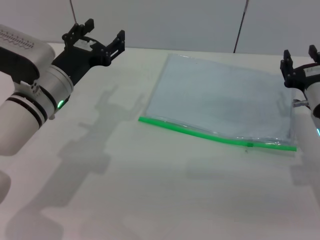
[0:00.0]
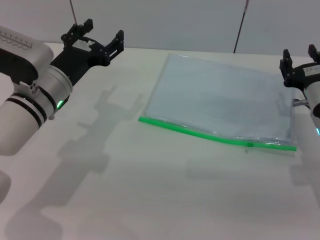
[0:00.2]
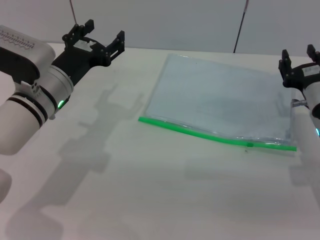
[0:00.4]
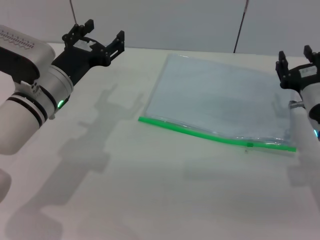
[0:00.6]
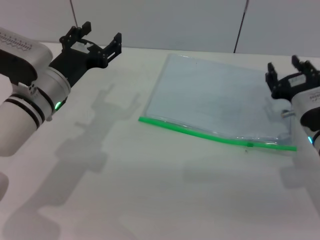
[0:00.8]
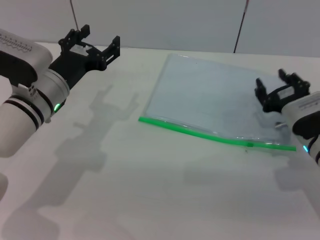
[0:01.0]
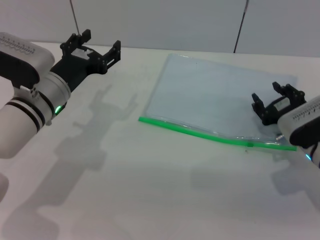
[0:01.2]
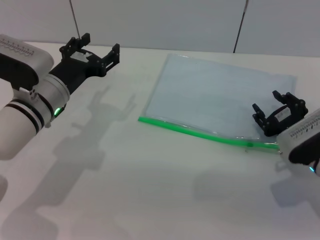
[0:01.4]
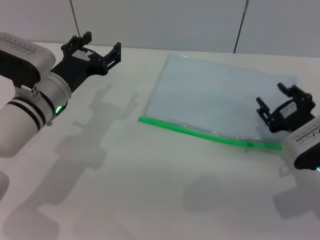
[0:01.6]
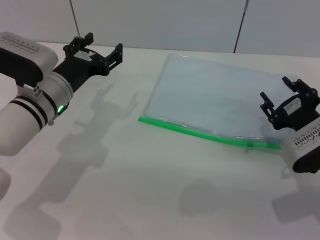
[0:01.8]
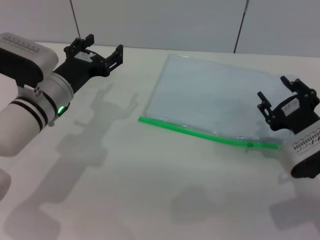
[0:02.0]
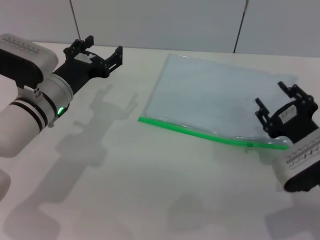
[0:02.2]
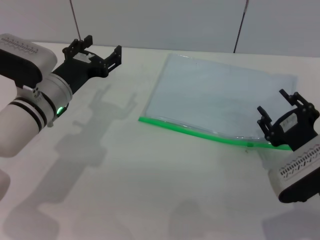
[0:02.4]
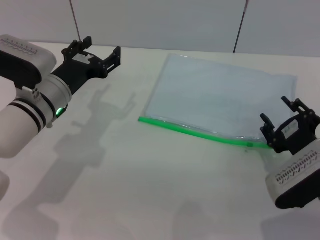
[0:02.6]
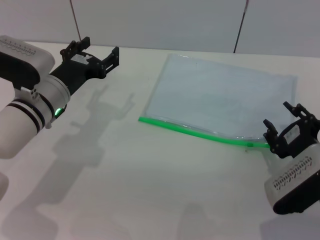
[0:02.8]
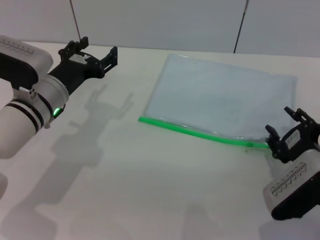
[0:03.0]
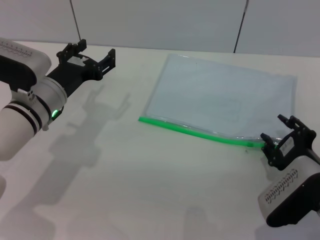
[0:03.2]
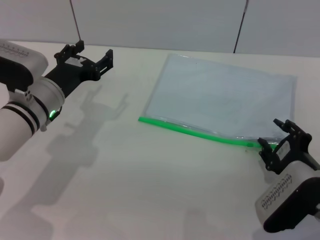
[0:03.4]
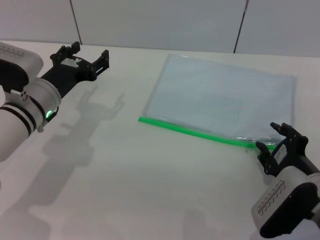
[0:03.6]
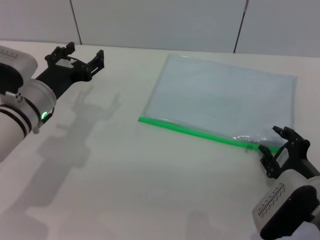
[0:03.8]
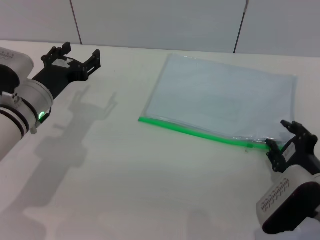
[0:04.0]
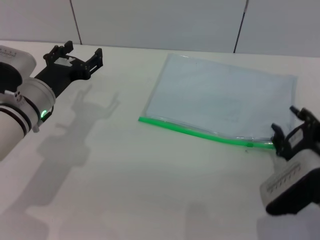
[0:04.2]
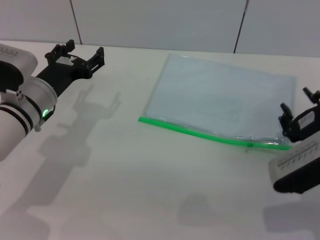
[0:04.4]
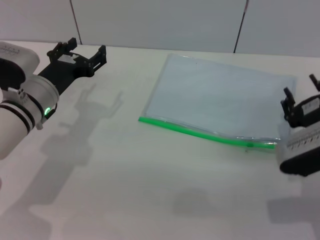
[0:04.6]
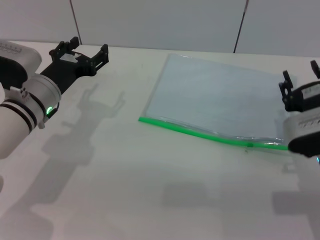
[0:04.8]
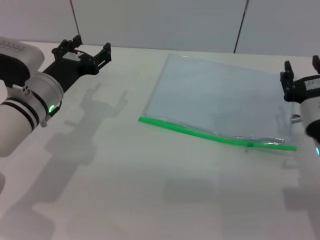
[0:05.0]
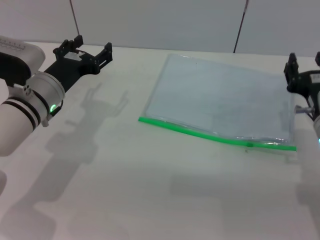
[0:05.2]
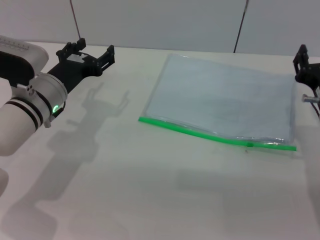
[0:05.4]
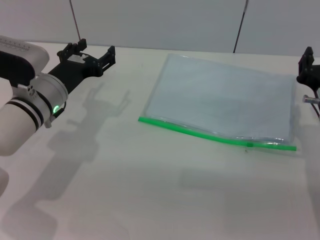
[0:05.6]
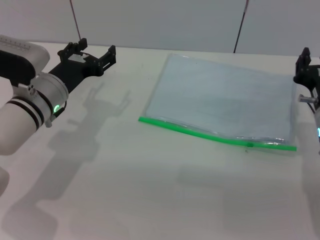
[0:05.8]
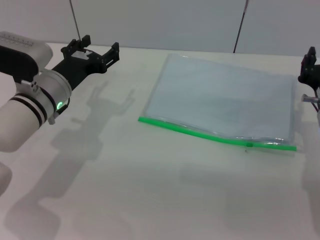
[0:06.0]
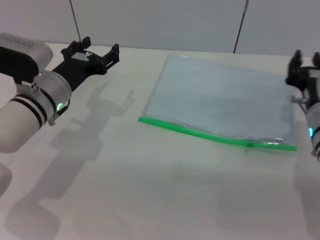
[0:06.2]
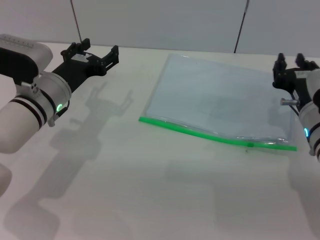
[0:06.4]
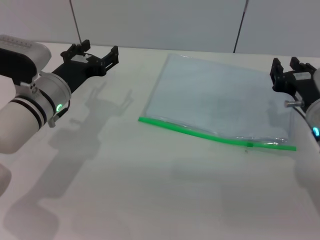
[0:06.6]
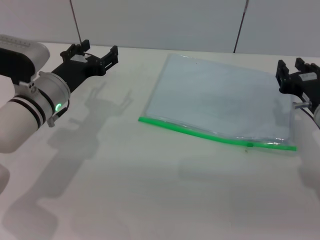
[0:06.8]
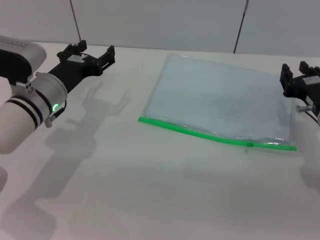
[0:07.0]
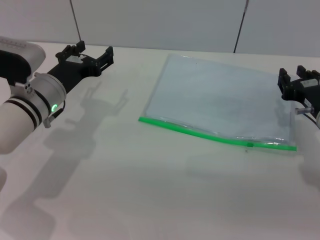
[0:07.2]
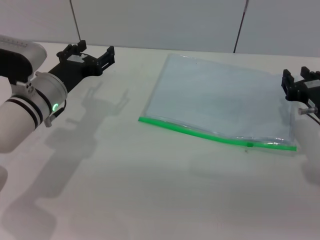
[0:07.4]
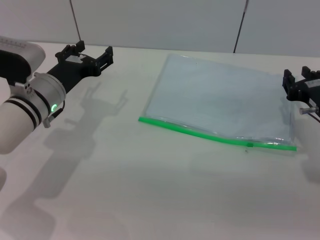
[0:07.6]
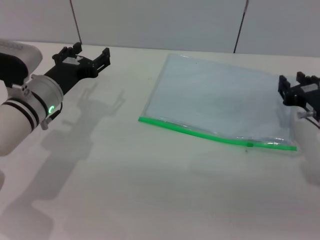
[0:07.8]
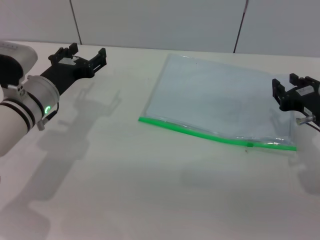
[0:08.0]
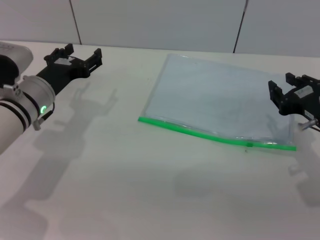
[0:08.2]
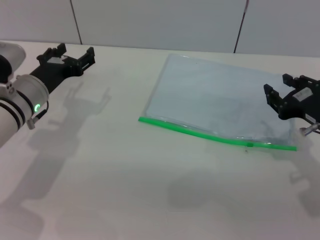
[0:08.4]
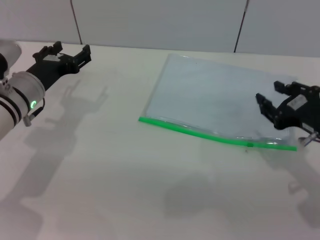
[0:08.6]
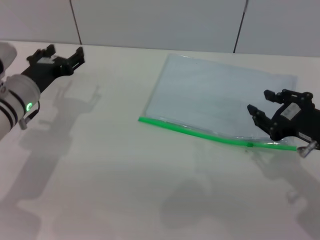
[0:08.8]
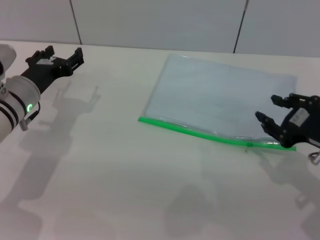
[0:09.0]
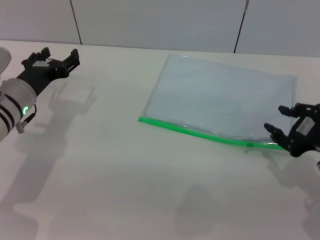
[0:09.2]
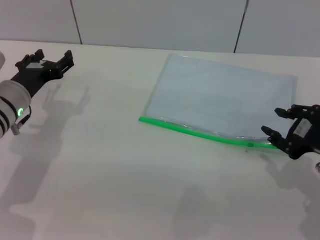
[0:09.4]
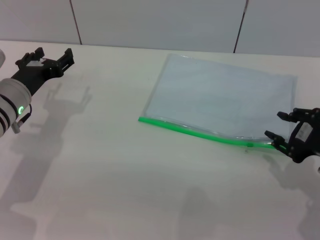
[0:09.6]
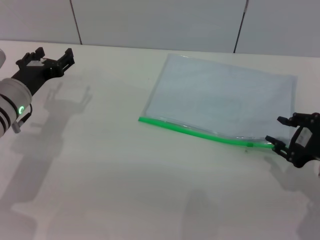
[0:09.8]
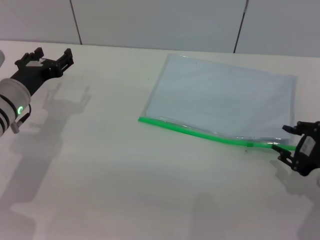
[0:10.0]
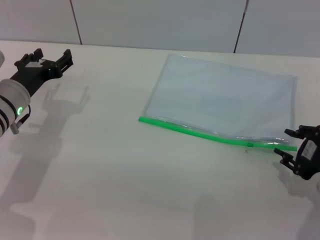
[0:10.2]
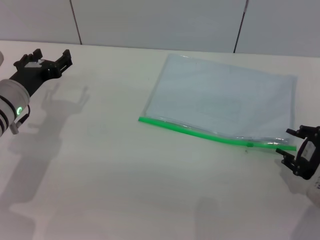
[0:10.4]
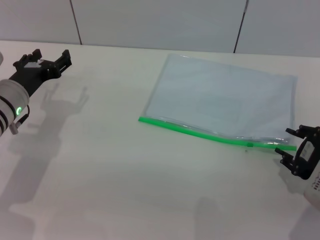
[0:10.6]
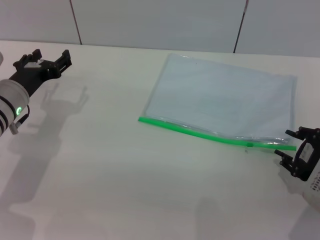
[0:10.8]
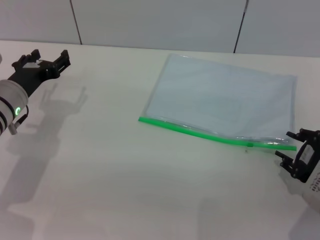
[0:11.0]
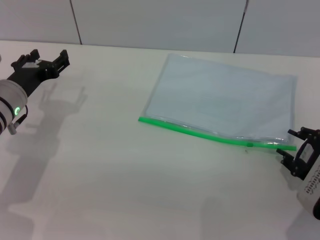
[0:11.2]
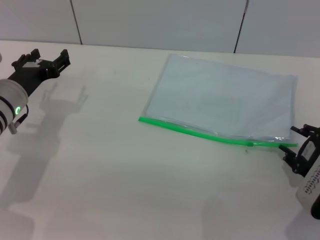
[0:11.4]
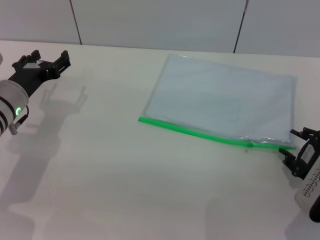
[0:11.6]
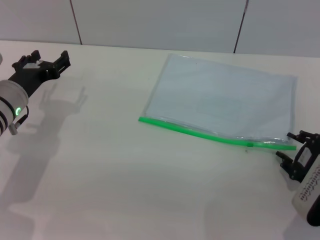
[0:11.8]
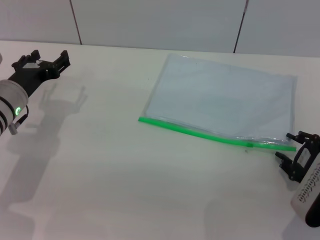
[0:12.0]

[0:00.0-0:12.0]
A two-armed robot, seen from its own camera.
0:01.6 to 0:03.0: The right gripper heads backward, covering roughly 5 cm.
0:03.0 to 0:04.4: The grippers move only a little.
0:04.4 to 0:06.0: The right gripper heads forward, covering about 5 cm.
0:07.6 to 0:09.0: The right gripper moves backward, roughly 5 cm.
0:10.4 to 0:12.0: There are only small adjustments of the grippers.

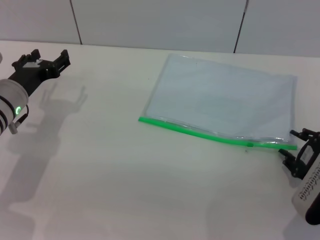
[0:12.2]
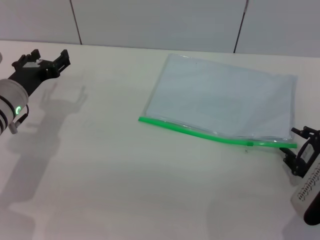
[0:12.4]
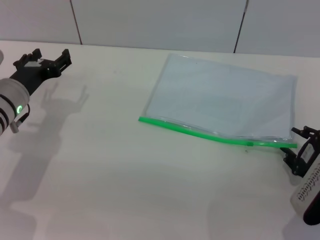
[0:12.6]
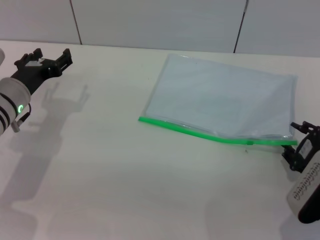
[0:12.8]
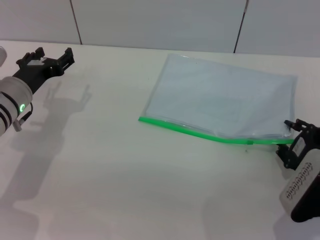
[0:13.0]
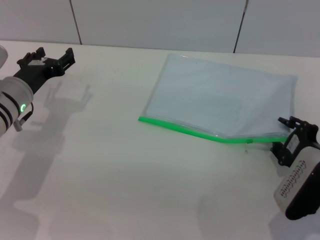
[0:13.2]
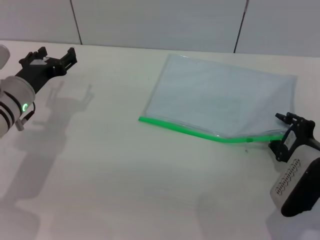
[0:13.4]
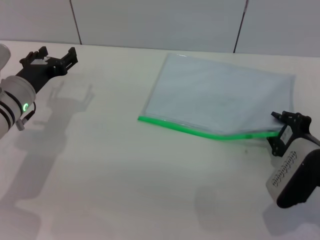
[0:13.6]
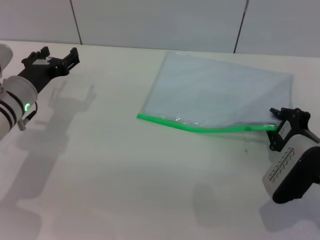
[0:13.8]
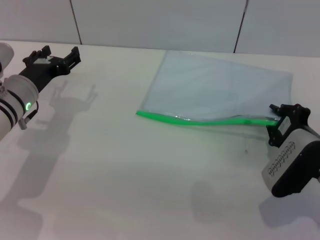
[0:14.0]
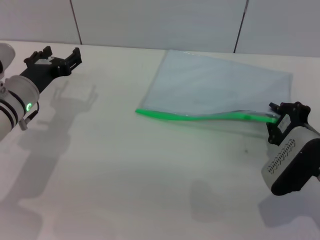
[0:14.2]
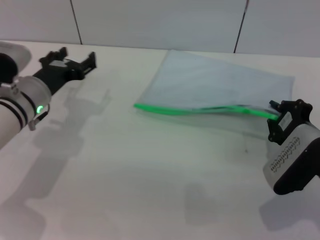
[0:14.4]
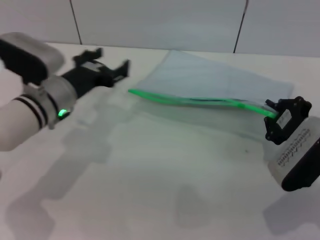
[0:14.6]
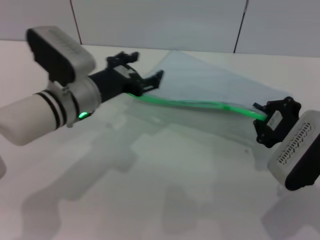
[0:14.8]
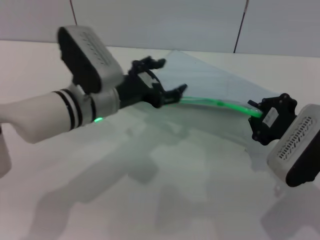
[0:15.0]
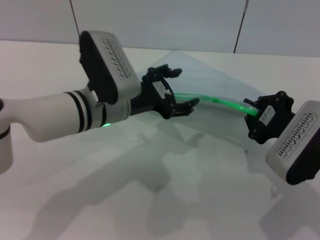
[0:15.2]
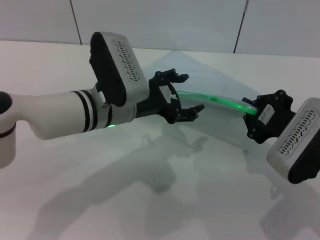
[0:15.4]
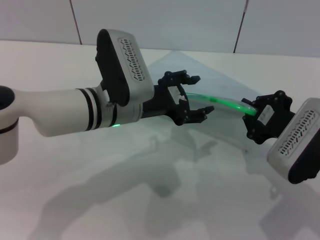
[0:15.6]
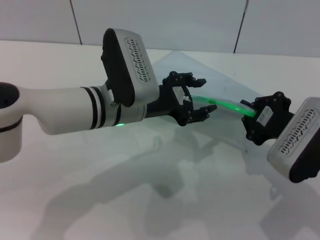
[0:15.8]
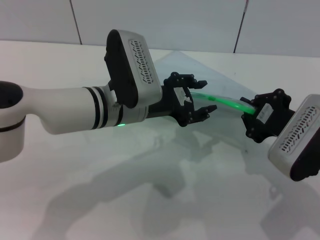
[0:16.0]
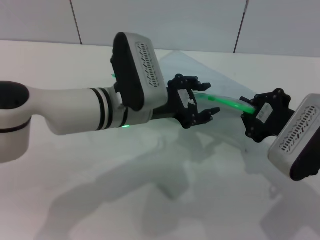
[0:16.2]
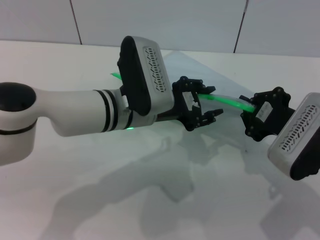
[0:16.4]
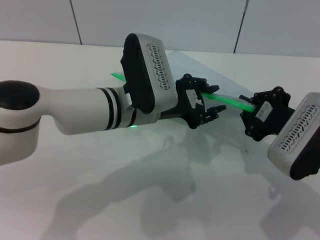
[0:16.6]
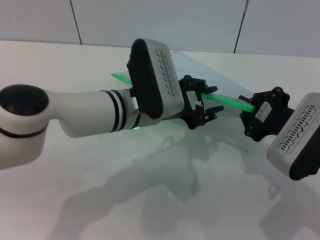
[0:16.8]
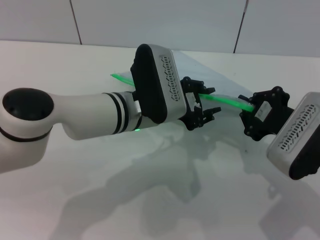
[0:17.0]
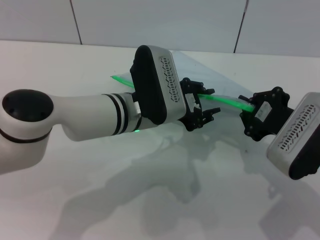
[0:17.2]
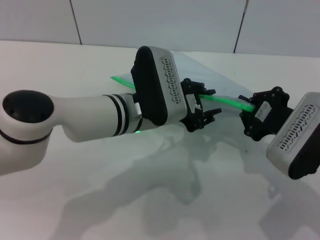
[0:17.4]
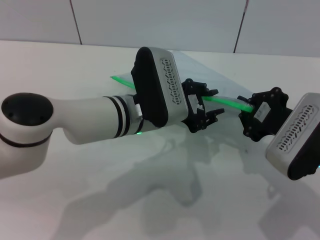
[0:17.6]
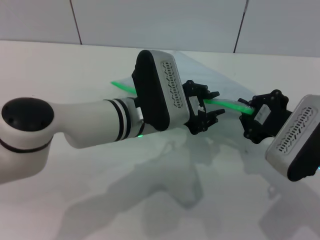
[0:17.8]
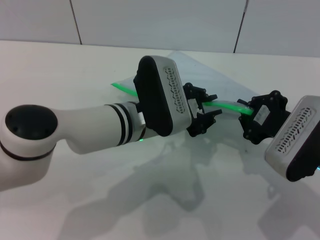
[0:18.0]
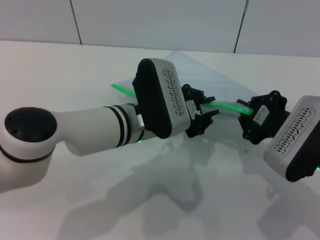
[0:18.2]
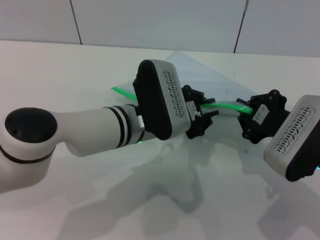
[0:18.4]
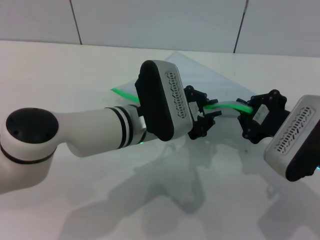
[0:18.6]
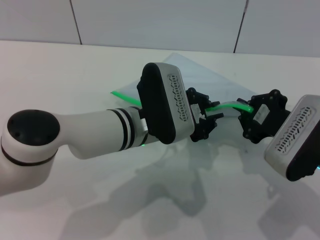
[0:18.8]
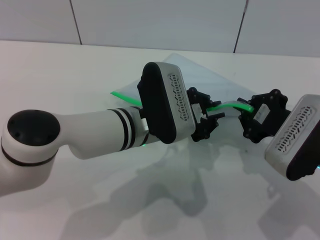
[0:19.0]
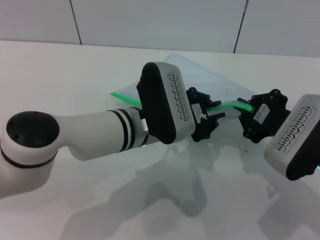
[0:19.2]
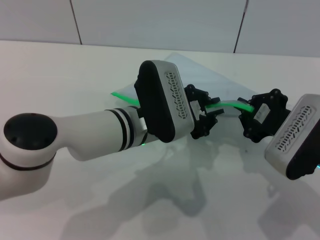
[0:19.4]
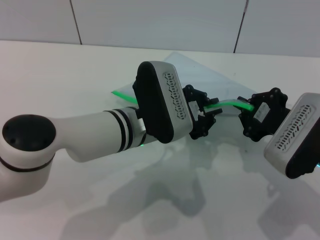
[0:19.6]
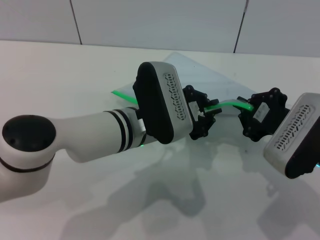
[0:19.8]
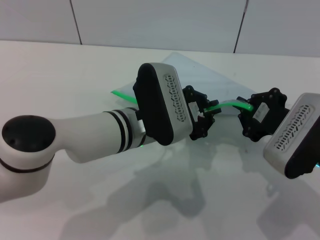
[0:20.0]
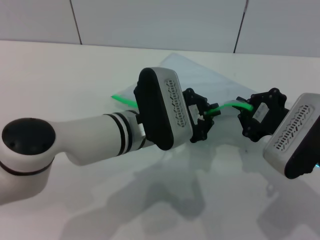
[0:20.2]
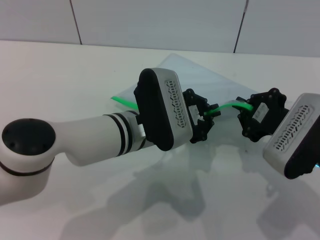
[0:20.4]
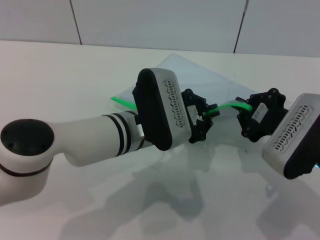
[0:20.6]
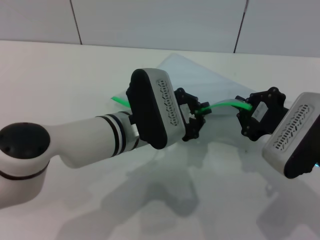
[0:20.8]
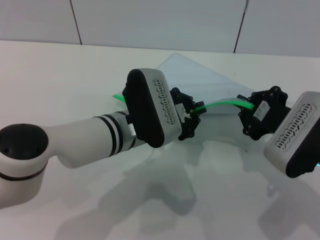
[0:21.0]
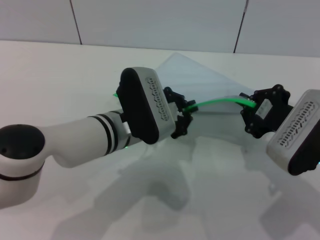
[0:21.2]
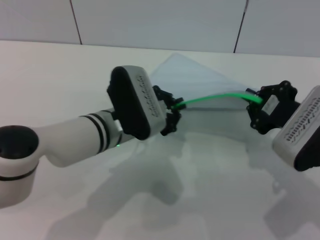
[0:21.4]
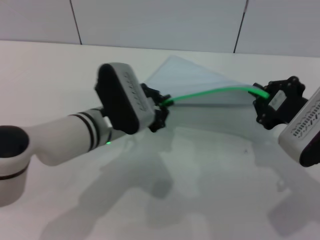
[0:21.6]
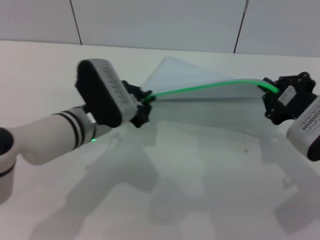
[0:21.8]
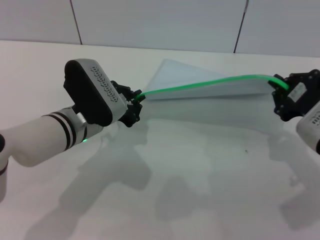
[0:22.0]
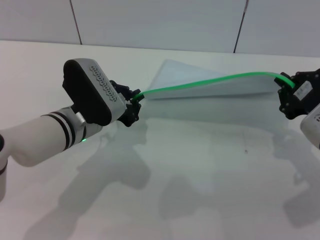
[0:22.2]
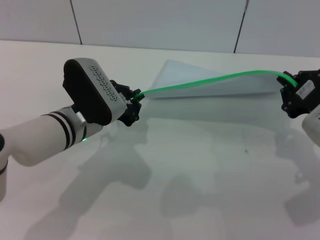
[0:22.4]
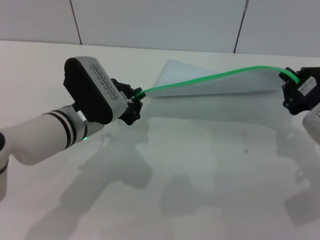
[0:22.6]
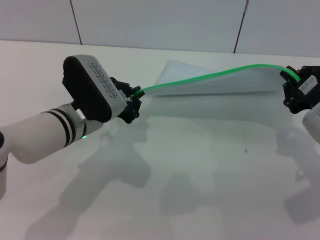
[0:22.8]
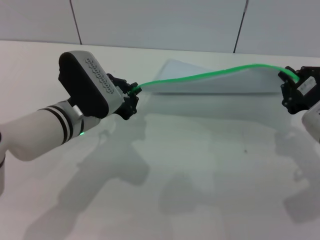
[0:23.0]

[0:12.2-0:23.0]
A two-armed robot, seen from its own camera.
Step, 0:12.2 to 0:14.4: Pick up the transparent plastic bag with the right gripper.
0:12.2 to 0:13.8: The grippers stay close to where they were, moving slightly.
0:13.8 to 0:15.2: The right gripper moves upward, roughly 5 cm, while the left gripper is displaced to the right by approximately 15 cm.
0:15.2 to 0:16.8: The left gripper closes its fingers.
0:16.8 to 0:18.4: The grippers move only a little.
0:18.4 to 0:20.0: Neither gripper changes place.
0:21.4 to 0:23.0: The left gripper is displaced to the left by about 5 cm.
